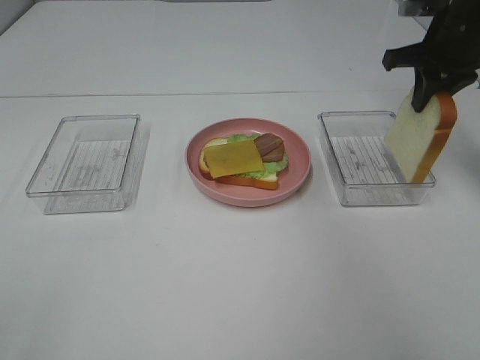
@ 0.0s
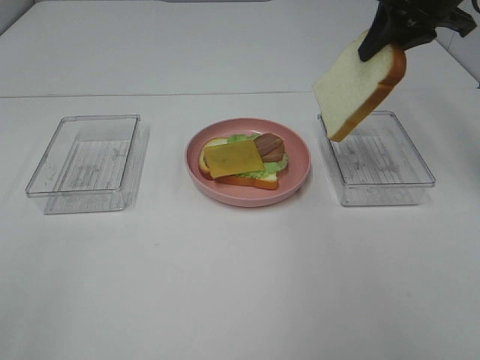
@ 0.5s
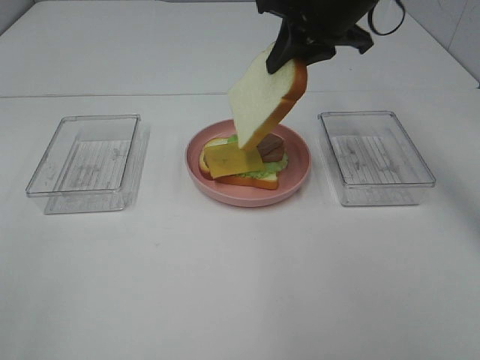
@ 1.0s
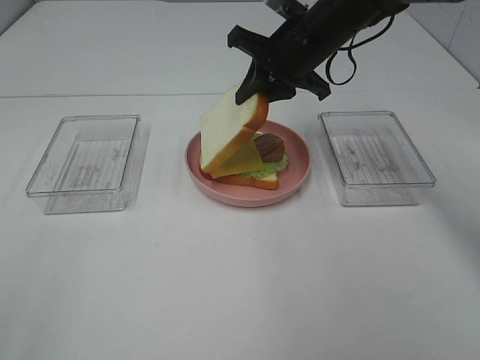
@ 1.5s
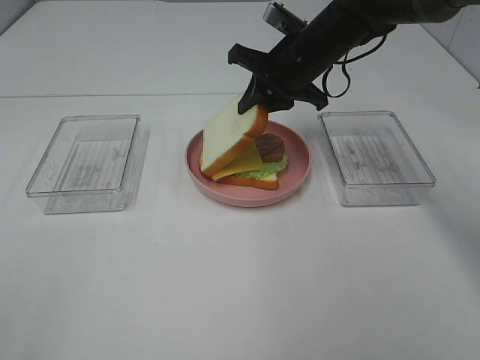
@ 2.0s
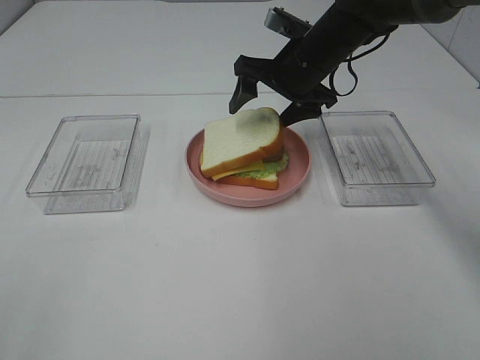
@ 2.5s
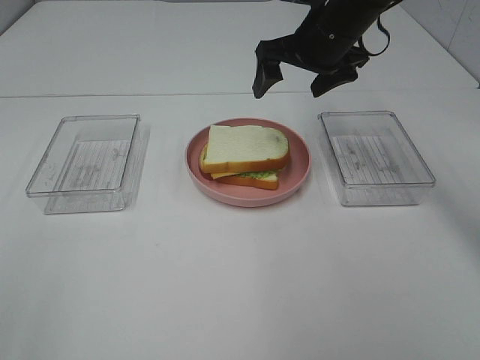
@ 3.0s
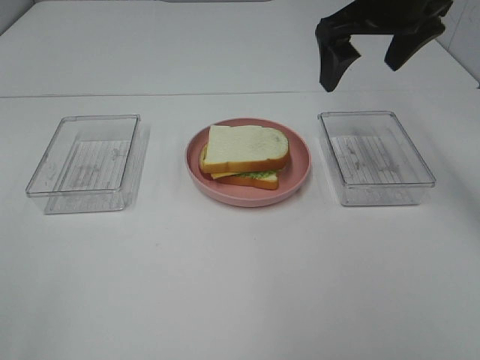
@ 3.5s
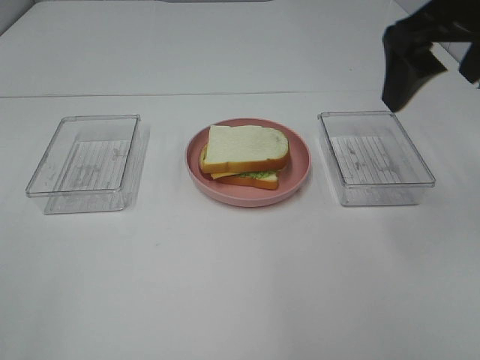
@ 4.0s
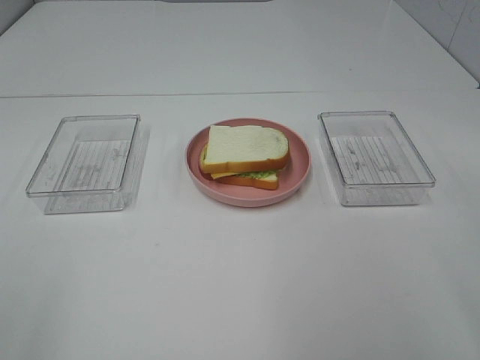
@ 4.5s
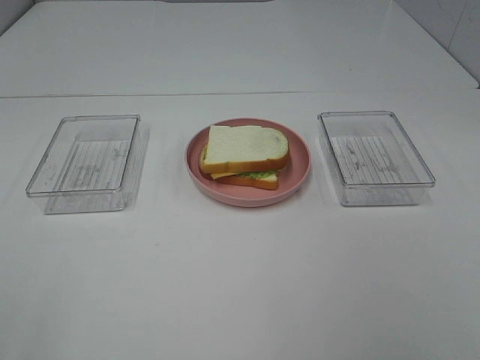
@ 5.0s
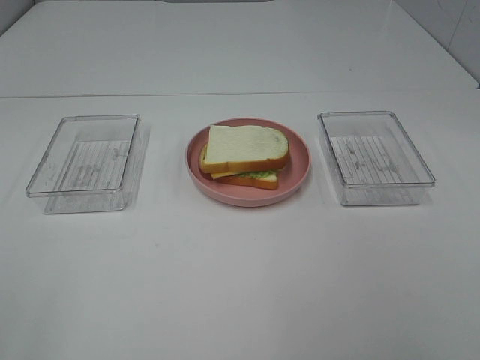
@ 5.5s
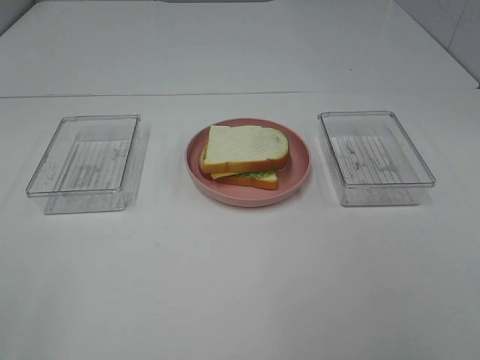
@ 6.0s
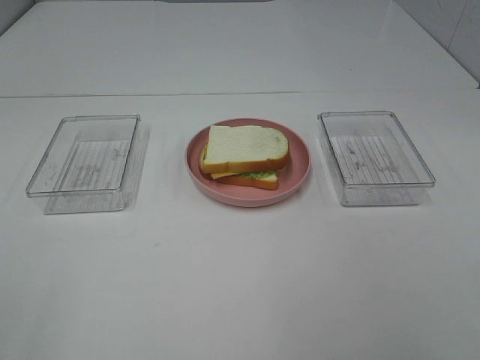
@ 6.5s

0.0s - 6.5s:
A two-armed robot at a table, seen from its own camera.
Task of the whole recording: Make sandwiches.
Step, 0.0s - 2.5s: Right hand:place the bread slice on the cheese slice.
0.0s - 2.0s: The right gripper is displaced to the left by roughly 15 cm.
2.0s - 4.5s: The right gripper heads backward, upward and to the right, covering approximately 40 cm, and opens.

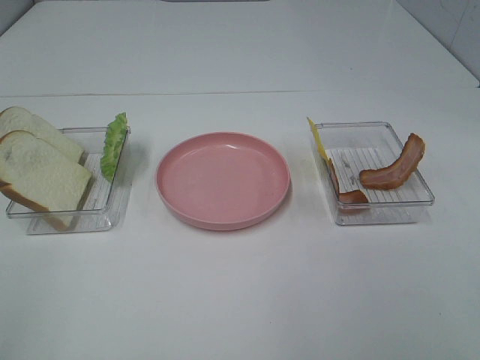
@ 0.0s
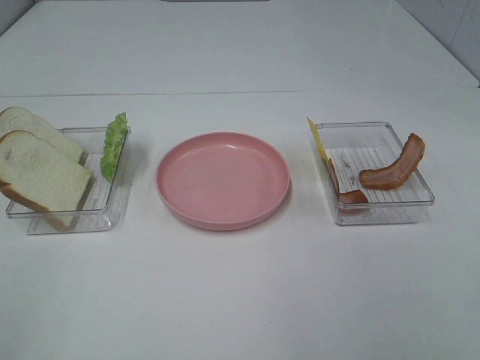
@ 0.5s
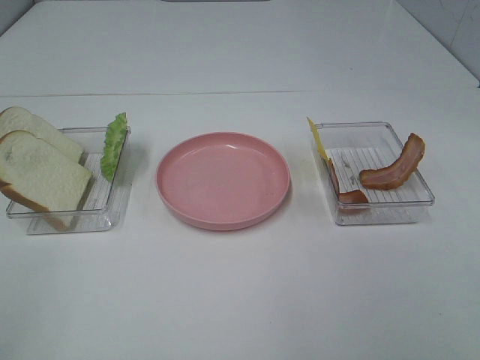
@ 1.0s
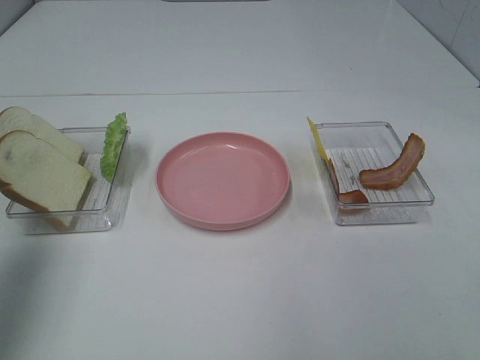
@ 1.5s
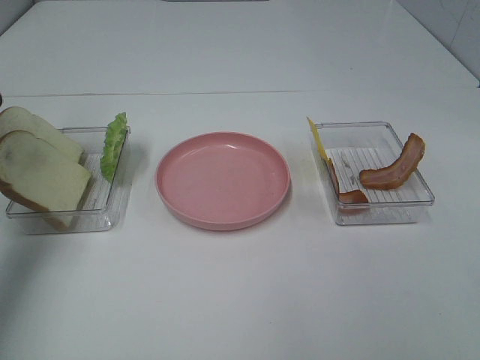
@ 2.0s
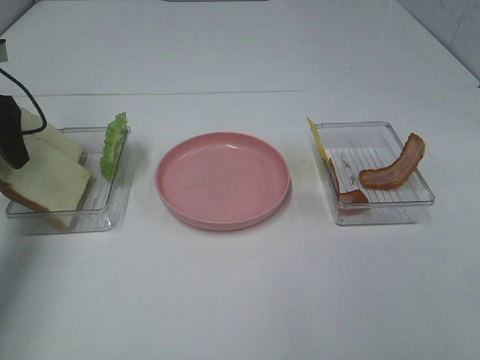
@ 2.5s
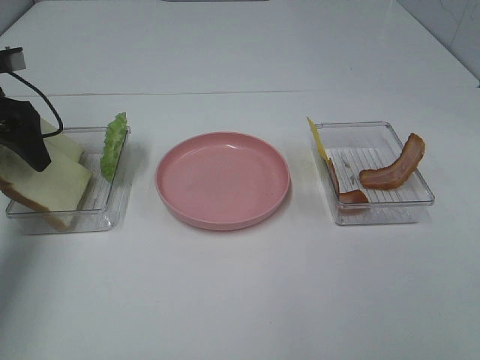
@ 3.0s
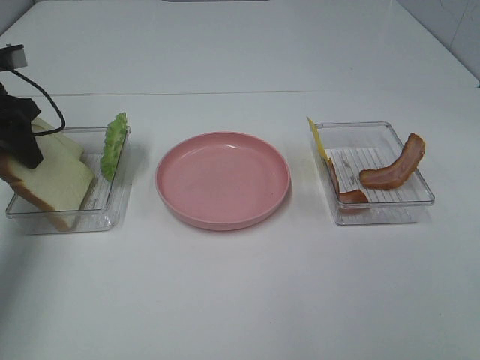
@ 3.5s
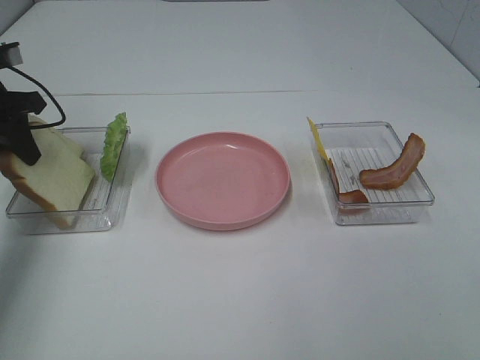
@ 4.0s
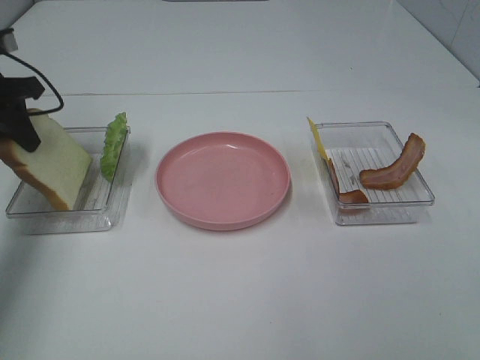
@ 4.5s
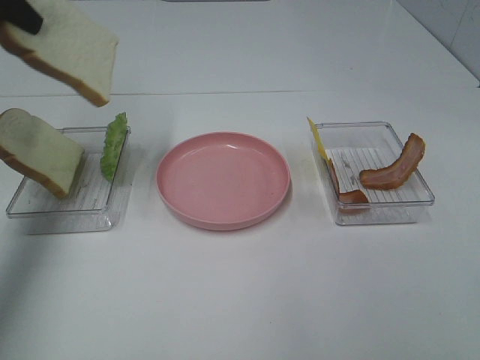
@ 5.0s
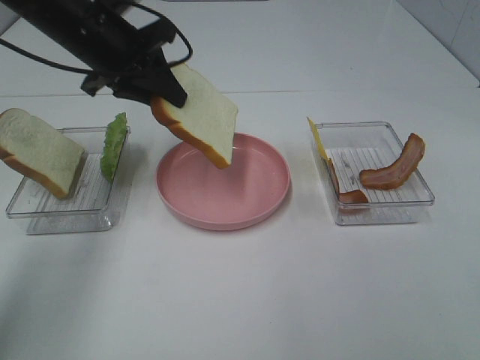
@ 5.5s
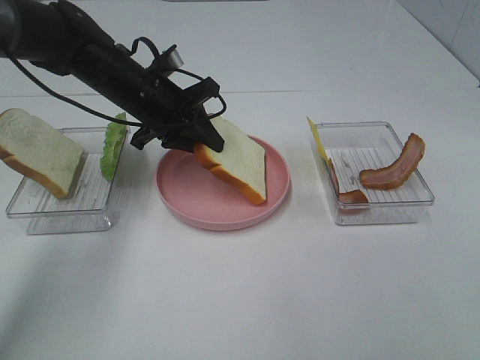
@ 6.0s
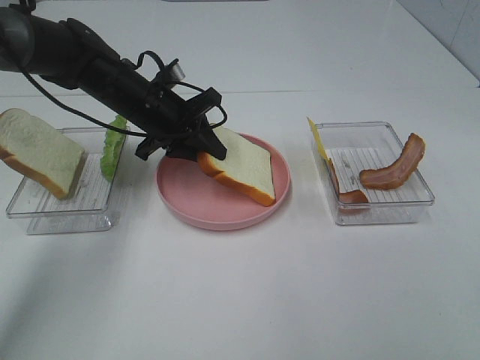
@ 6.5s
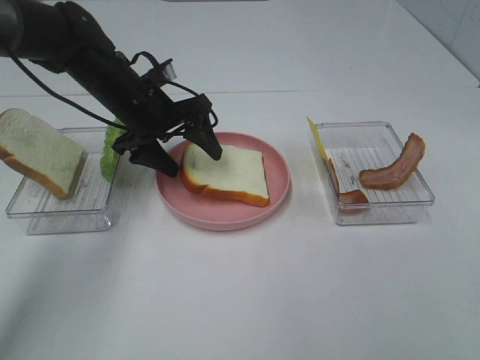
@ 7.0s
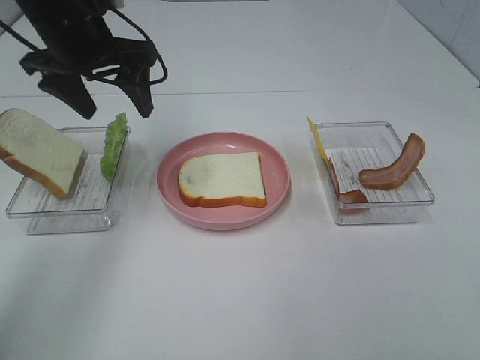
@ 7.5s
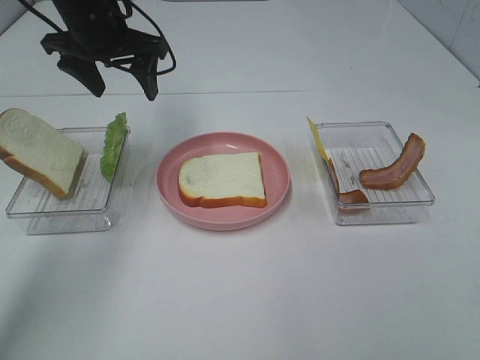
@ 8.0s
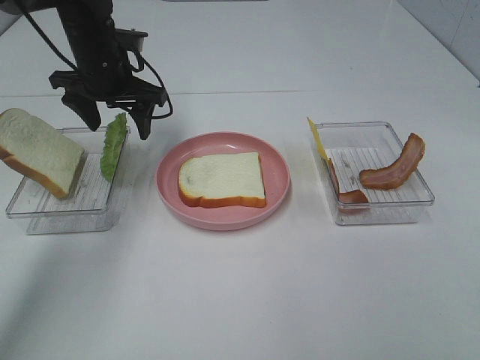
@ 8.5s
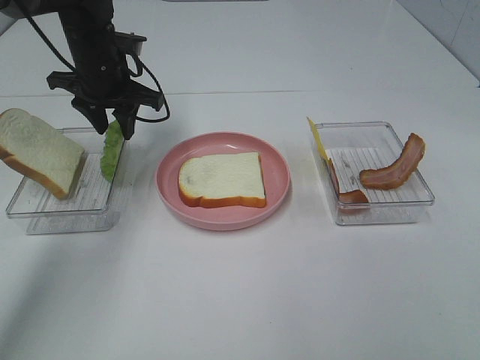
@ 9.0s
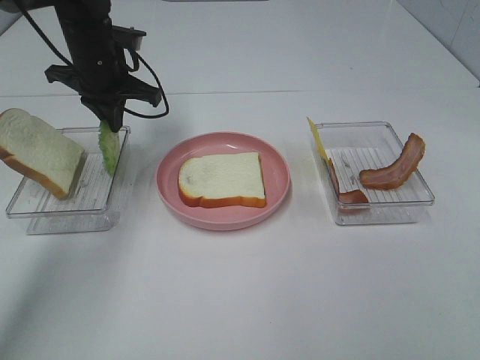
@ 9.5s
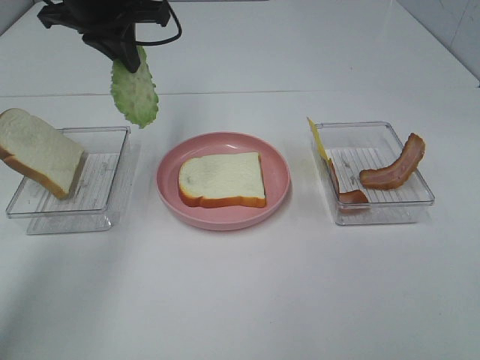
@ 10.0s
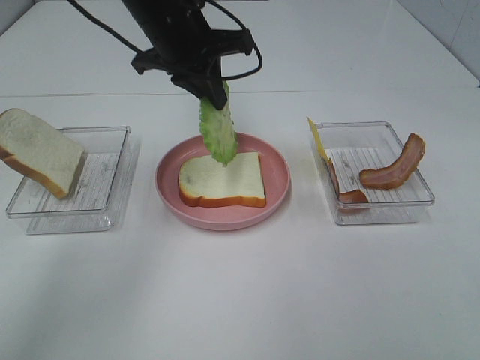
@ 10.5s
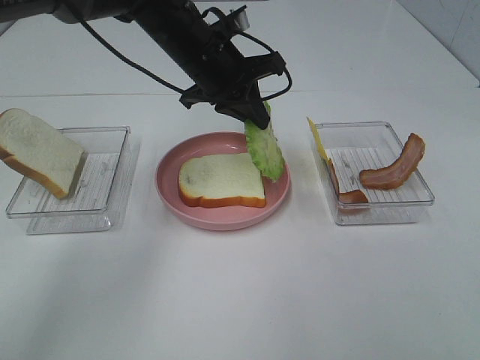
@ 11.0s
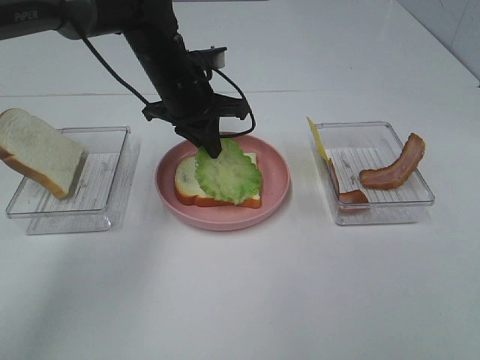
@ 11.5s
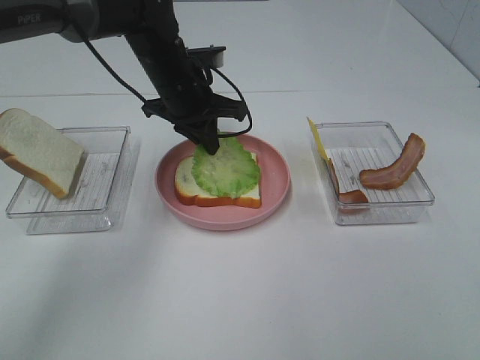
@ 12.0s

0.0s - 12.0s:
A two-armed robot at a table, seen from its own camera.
Task of the whole recording: Make sandwiches.
Step, 0.0s - 3.5s: Left hand:grab the bread slice.
Step, 4.0s - 7.0s: Left hand:place the bread slice on the plate.
Step, 7.5s - 9.0s: Left hand:grab the lettuce slice.
0.0s - 2.0s: The left gripper is displaced forward by about 35 cm.
2.0s - 4.0s: The left gripper moves downward and forward, some 10 cm, and closes up.
4.0s - 6.0s: The left gripper goes roughly 20 cm to the right, and travels upward and back again, approximately 15 cm each way.
6.0s - 8.0s: The left gripper shifts about 10 cm upward, and opens.
8.0s - 10.0s: The left gripper closes its fingers.
10.0s - 12.0s: The left gripper travels downward and to the right by some 15 cm.

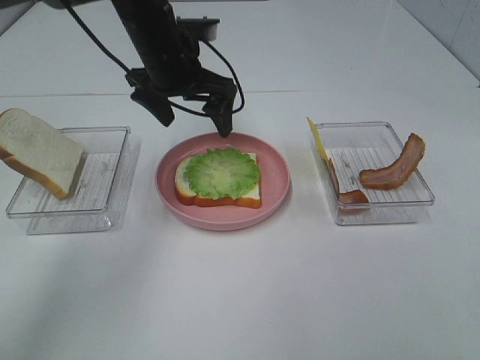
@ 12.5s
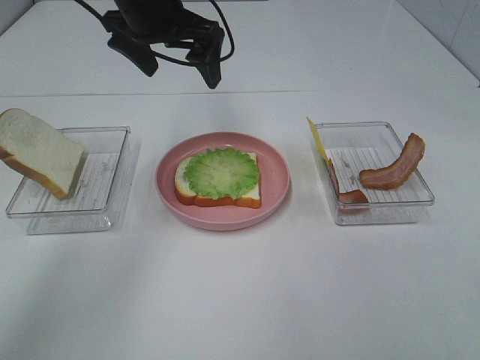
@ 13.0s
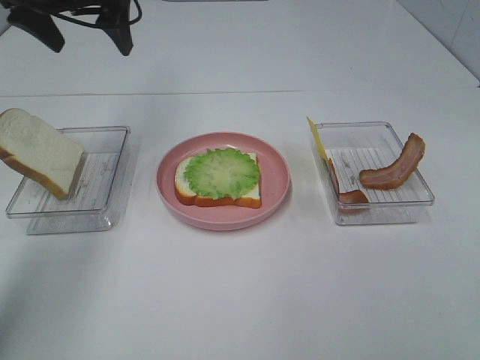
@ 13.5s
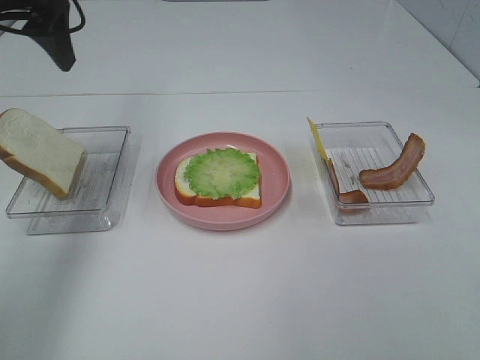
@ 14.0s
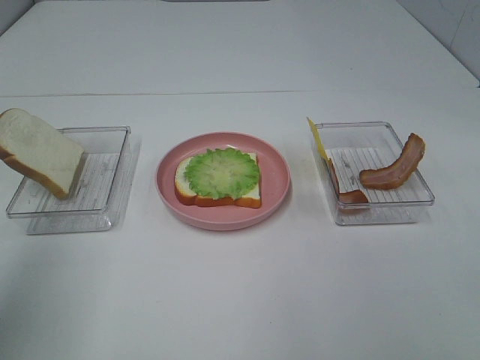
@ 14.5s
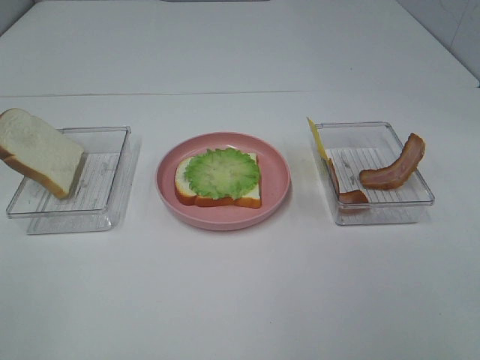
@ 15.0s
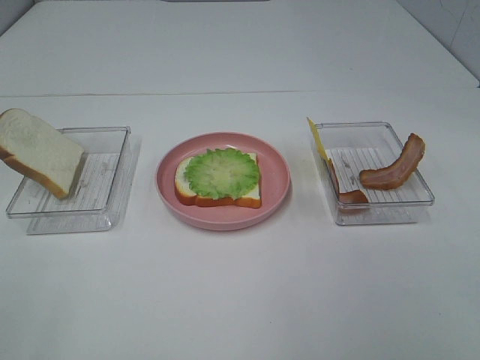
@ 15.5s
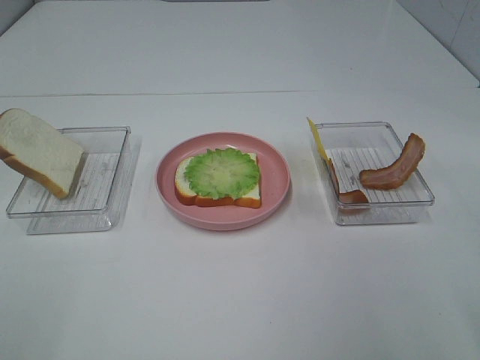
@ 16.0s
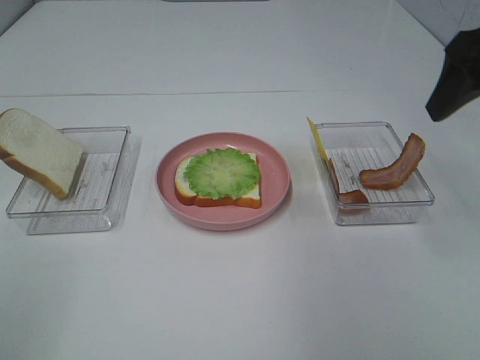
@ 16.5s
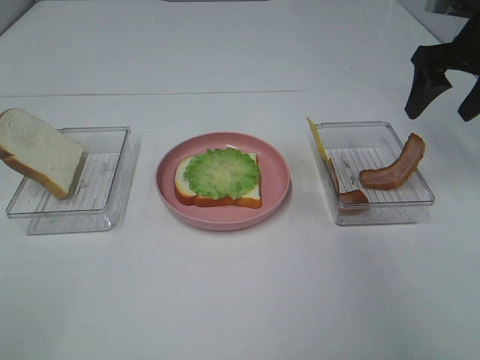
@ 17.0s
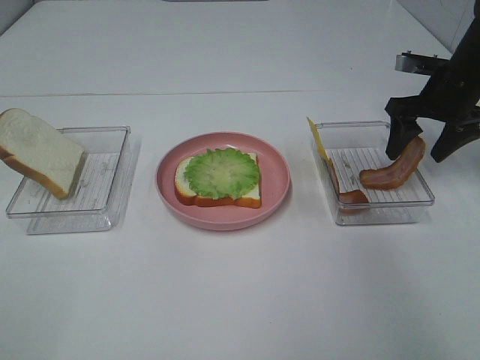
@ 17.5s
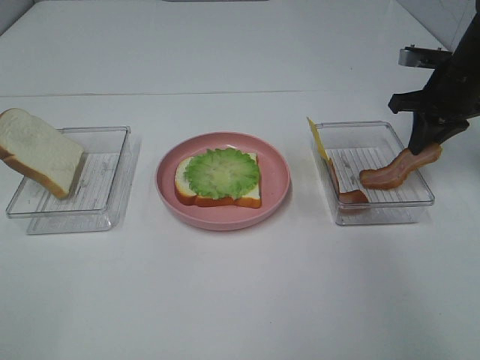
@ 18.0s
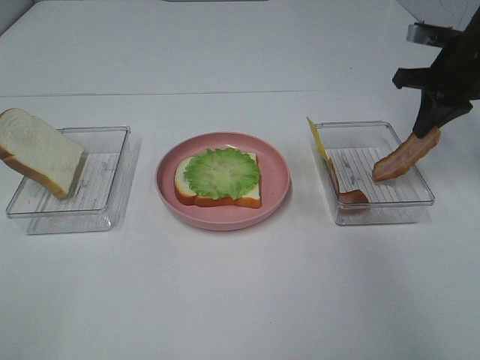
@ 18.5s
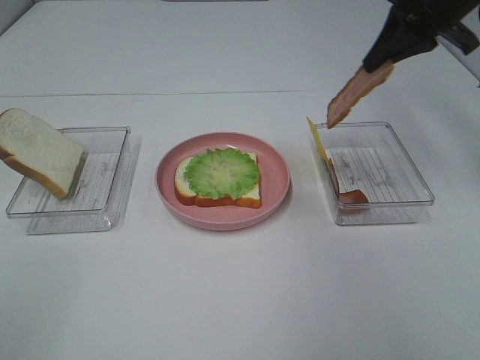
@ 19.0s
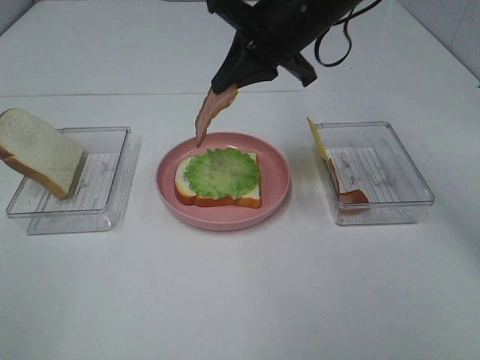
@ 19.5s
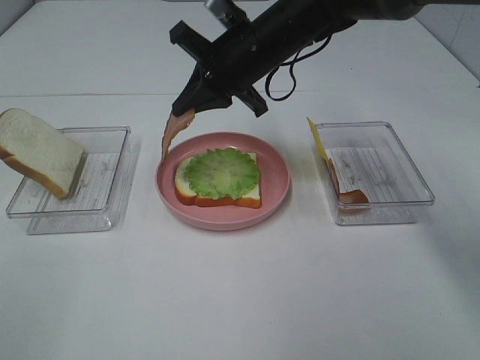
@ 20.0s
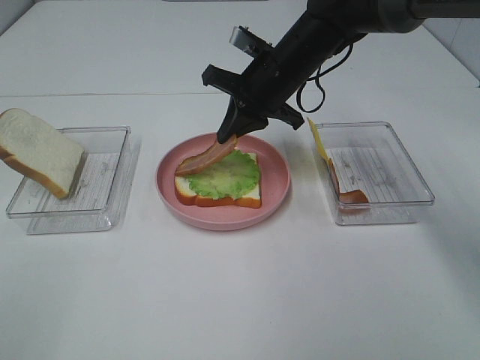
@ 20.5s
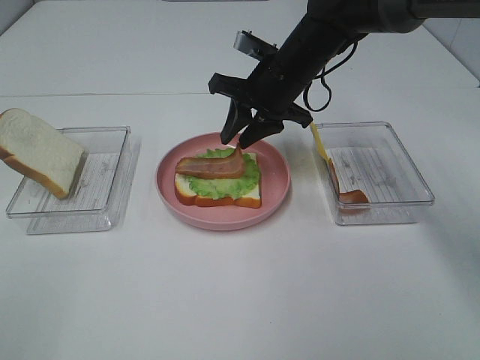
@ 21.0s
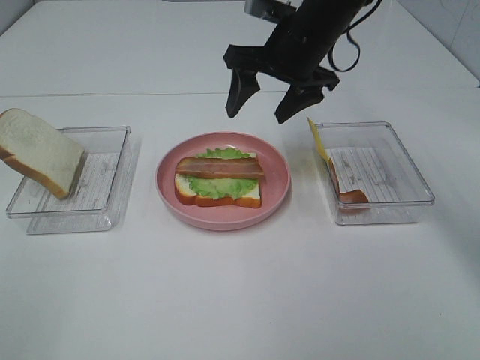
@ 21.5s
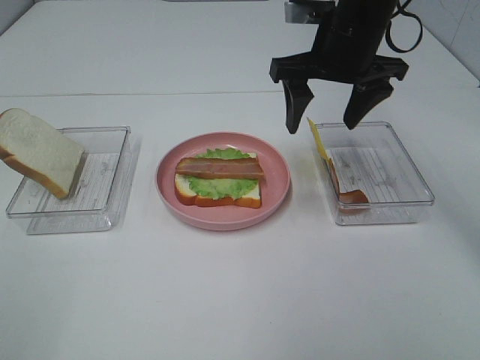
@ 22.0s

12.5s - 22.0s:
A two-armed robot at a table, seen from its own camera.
Task of the whole recording: Make sandwiches.
Step, 12.5s - 18.0s: Right hand:grab the bacon.
Step, 18.5s - 21.0s: Right hand:place bacon on lettuce slice.
12.5s - 14.5s: The left gripper goes roughly 40 cm backward, to the left and upward.
14.5s - 16.5s: The right gripper travels forward by roughly 25 cm.
16.5s - 18.0s: The right gripper moves forward and downward, about 20 cm, and closes.
18.0s - 20.0s: The right gripper travels to the left by roughly 25 cm.
20.0s - 22.0s: The right gripper travels to the right by some 10 cm, and opens up.
